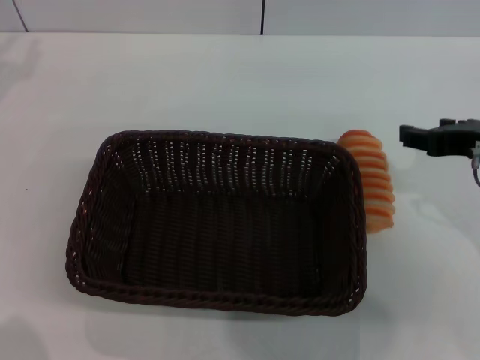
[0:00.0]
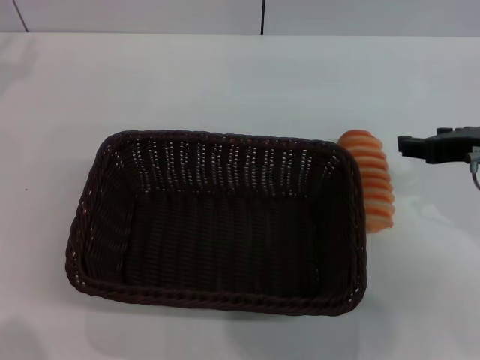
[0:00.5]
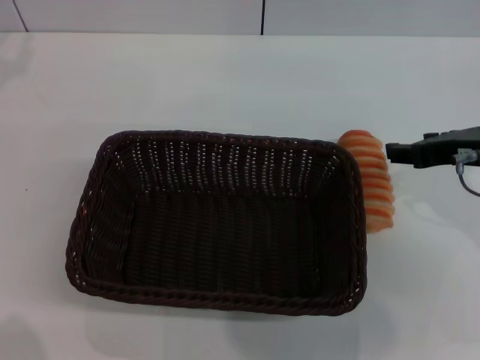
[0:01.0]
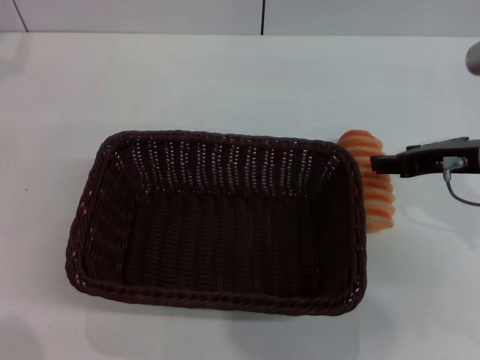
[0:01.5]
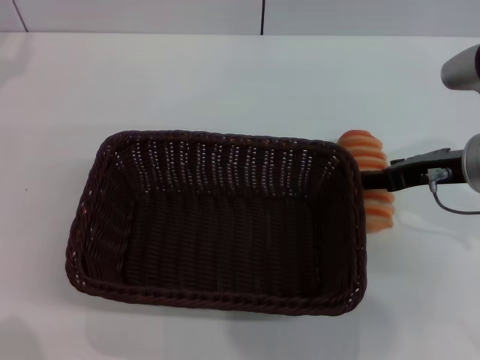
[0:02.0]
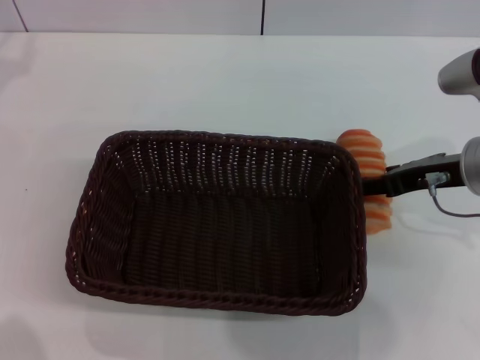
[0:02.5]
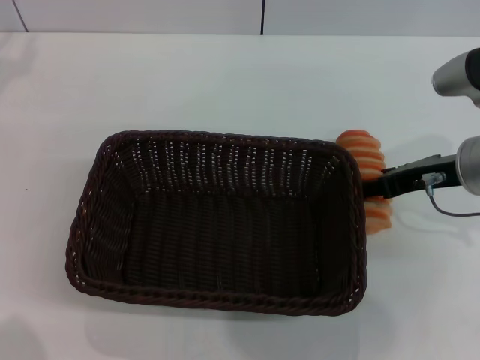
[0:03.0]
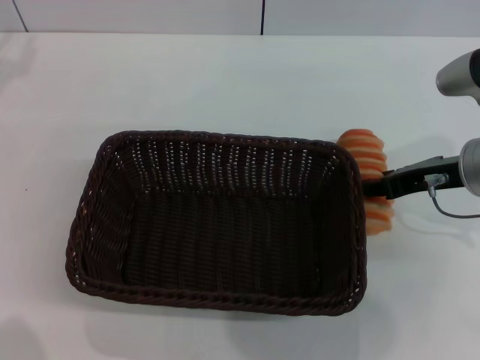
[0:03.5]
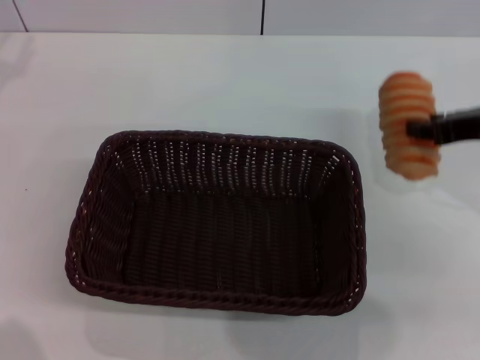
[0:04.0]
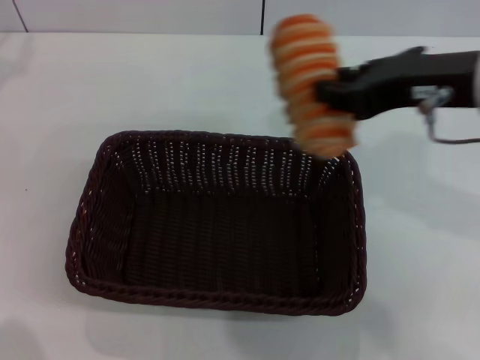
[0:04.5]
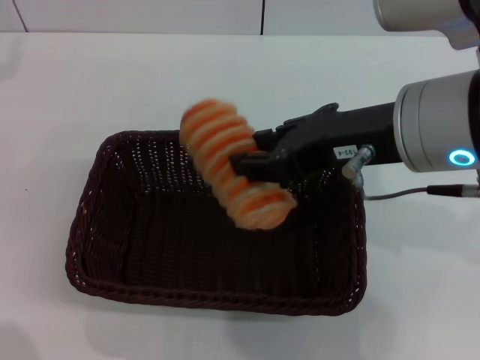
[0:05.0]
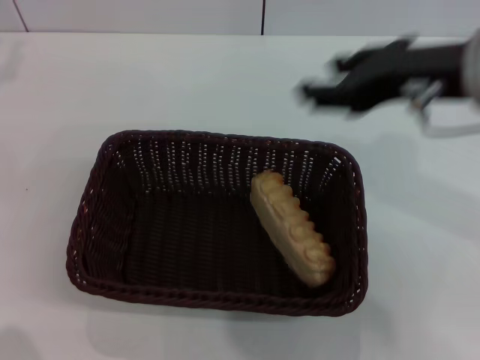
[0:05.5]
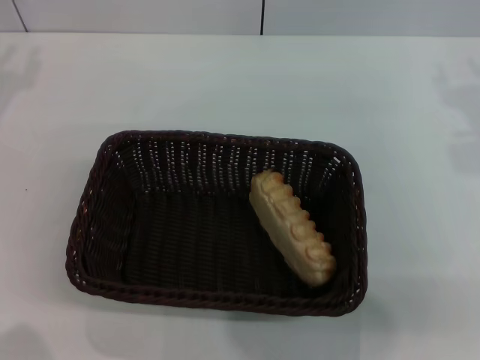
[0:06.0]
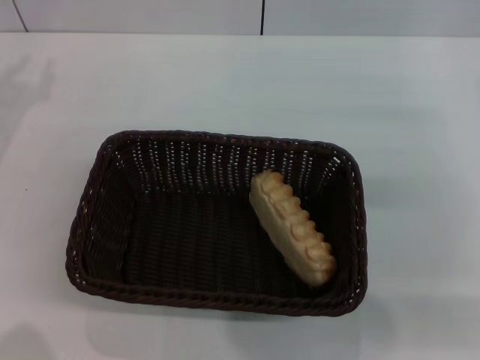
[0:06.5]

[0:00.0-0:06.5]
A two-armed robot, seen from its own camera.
Step, 0:00.0 to 0:03.5: Grasp the long bread with right gripper.
Step, 0:04.0 to 0:05.5: Place the long bread in the basket with right gripper.
0:00.0 to 0:02.0: There are only small adjustments of the grippers.
0:02.0 to 0:04.5: The right gripper shifts approximately 10 cm upward, and closes its fingers.
0:04.5 to 0:06.5: The left gripper shifts about 10 cm downward. The right gripper goes approximately 15 cm to the right and downward, and opens up.
